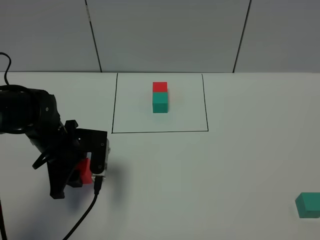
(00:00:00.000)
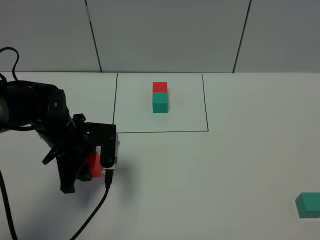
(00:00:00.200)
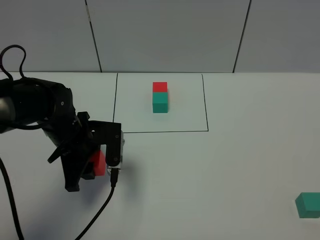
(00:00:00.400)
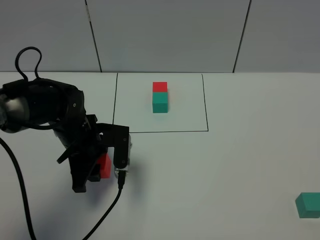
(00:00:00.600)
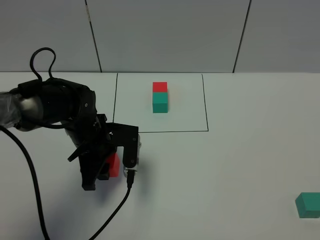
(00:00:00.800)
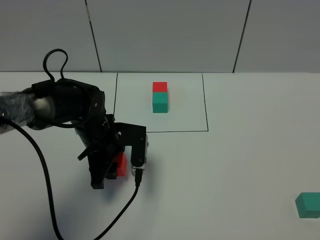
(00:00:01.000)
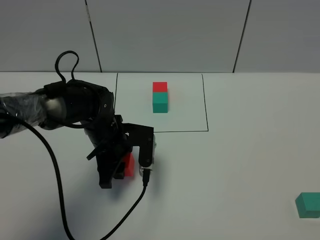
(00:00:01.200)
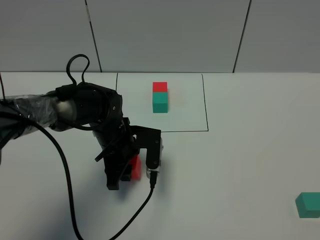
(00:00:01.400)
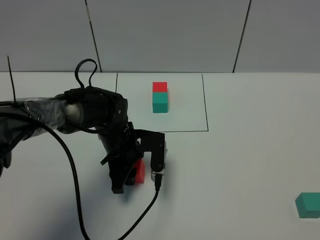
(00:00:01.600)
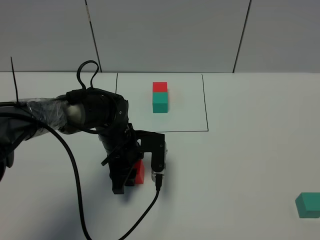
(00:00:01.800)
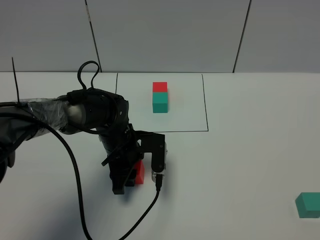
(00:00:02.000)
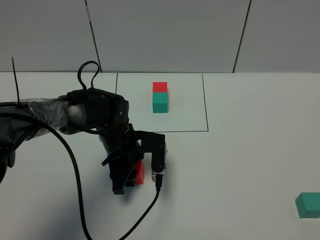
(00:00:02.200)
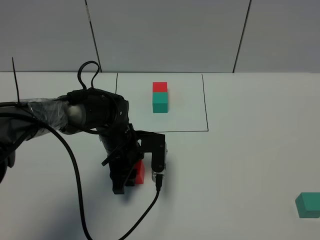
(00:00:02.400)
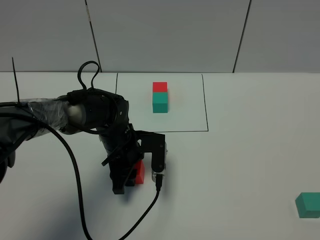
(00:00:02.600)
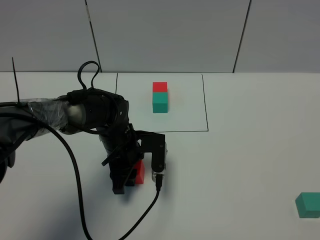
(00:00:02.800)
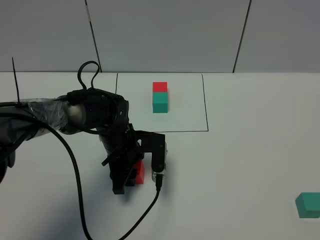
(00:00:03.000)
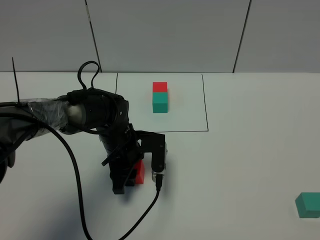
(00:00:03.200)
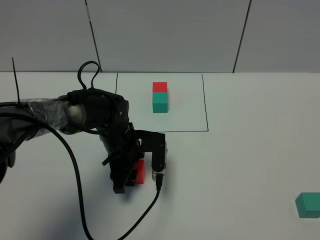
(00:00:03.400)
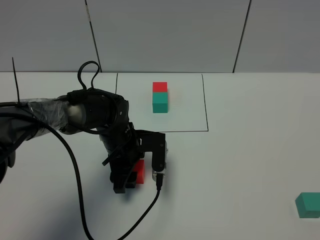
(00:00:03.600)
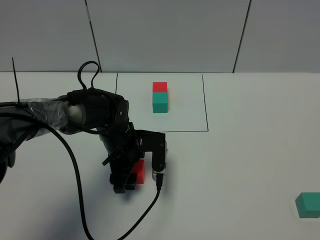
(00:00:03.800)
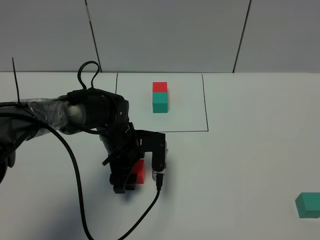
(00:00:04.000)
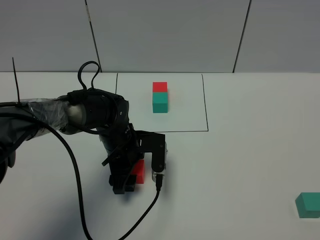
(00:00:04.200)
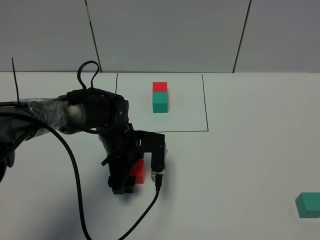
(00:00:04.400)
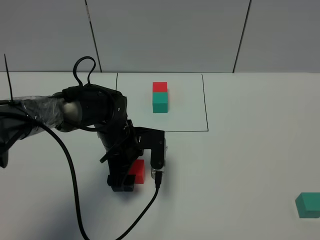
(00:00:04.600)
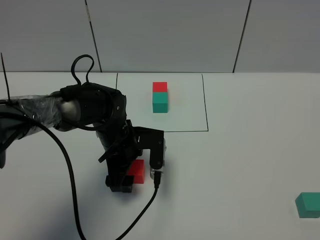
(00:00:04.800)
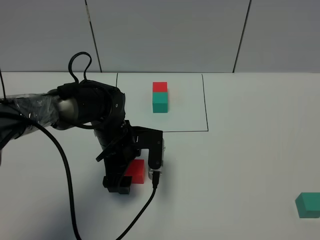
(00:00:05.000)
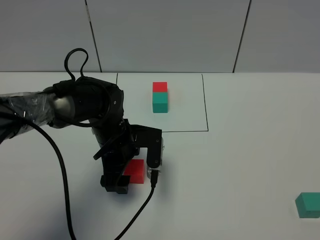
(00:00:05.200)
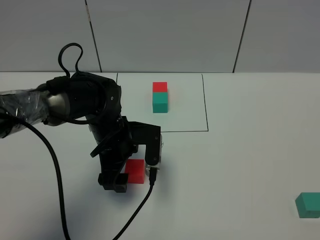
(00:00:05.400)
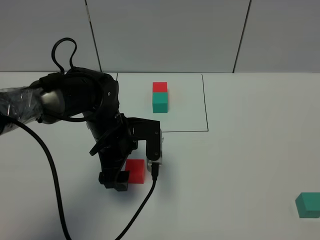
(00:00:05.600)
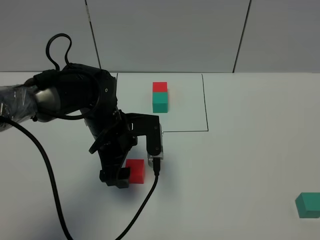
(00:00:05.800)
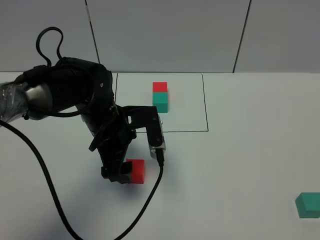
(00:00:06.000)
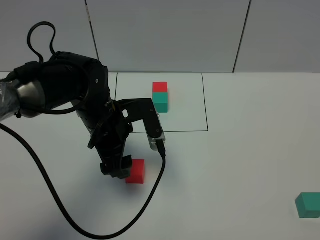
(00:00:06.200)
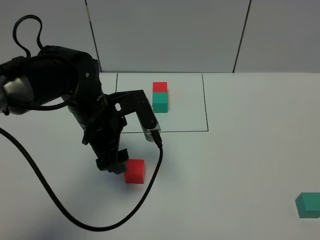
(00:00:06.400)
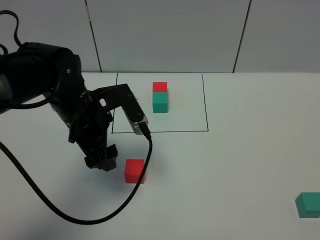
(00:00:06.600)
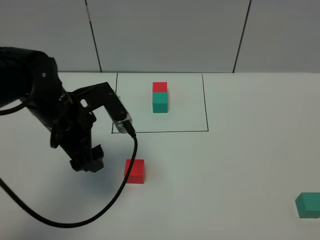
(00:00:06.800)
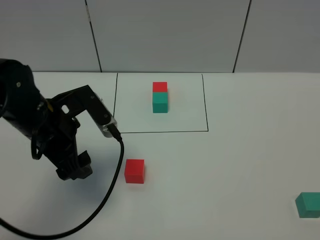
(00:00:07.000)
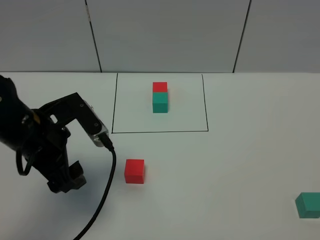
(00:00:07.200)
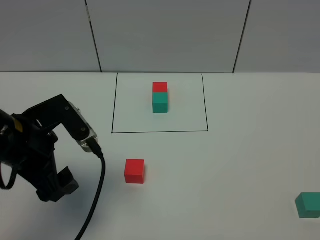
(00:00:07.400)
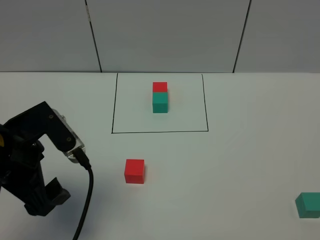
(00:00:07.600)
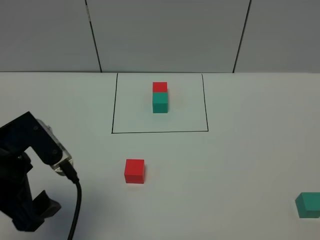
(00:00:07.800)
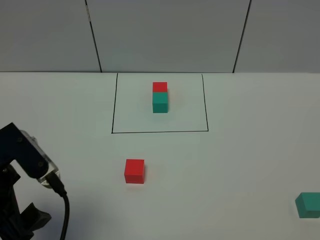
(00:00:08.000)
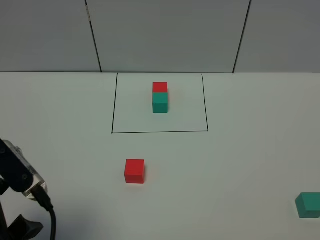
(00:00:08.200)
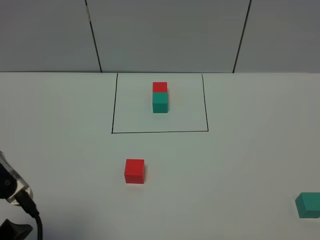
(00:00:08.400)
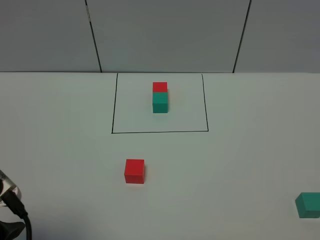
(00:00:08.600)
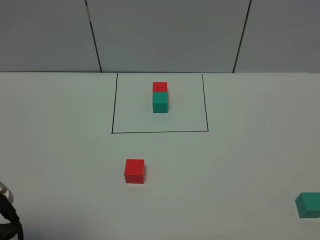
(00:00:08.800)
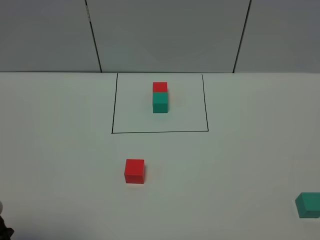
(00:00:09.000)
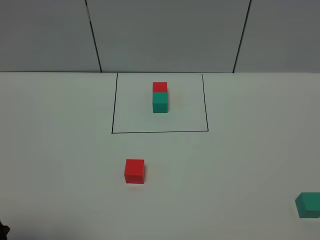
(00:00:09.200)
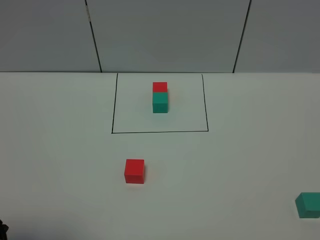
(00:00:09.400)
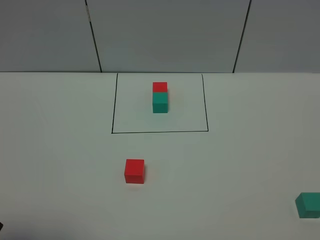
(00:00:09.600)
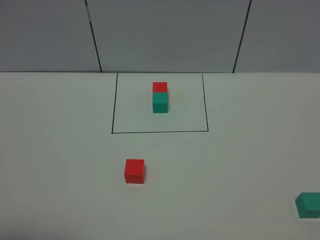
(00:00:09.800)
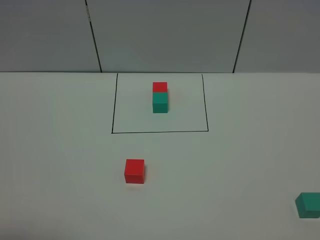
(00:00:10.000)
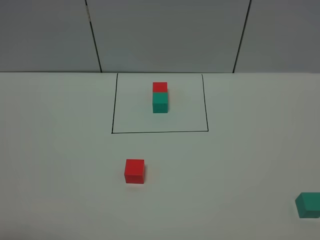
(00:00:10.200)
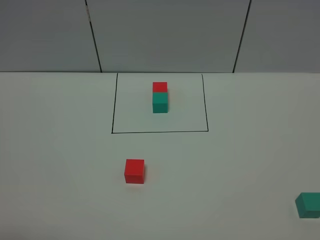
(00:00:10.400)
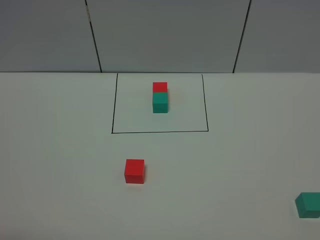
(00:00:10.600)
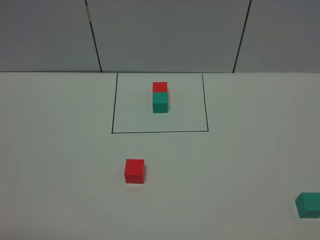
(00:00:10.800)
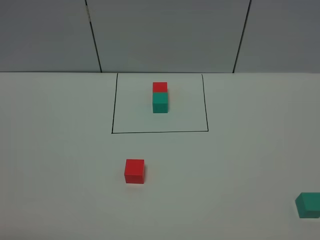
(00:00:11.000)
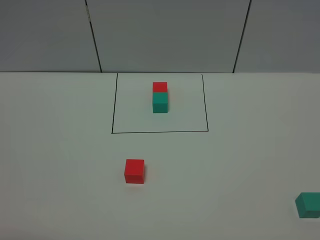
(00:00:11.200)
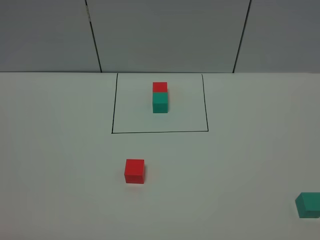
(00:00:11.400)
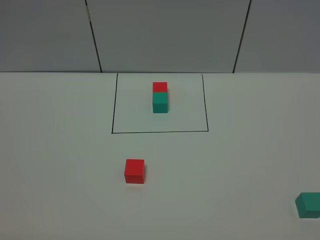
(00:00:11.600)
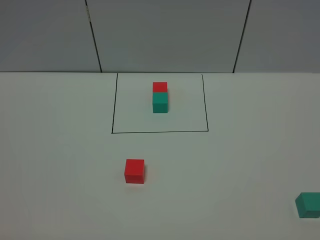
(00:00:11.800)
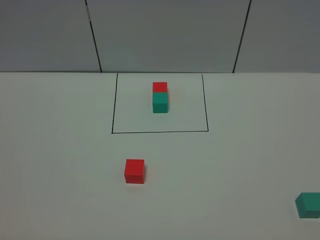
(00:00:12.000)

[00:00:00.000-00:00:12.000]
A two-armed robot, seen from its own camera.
Task of the whole recording: According to the building block template in front, assemble the scattered blocks together.
Step, 00:00:00.000 to 00:00:05.400: Put the red cube in the center of the table.
00:00:00.000 to 00:00:01.600: The left gripper travels to the right by some 10 cm.
00:00:01.600 to 00:00:03.000: Both grippers stay put.
00:00:03.000 to 00:00:04.400: The left gripper opens.
00:00:04.400 to 00:00:06.000: The left gripper shifts about 10 cm upward.
00:00:06.000 to 00:00:07.600: The left gripper heads backward, to the left and upward, covering about 20 cm.
00:00:07.600 to 00:00:09.000: The left gripper goes some 10 cm backward.

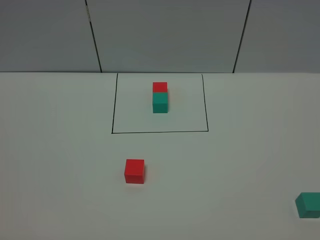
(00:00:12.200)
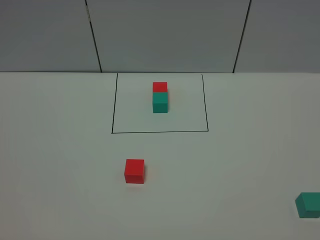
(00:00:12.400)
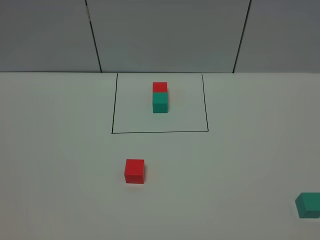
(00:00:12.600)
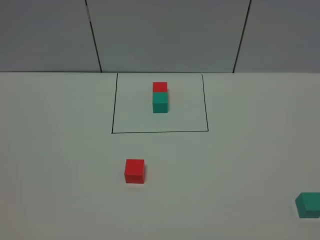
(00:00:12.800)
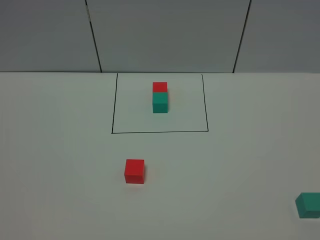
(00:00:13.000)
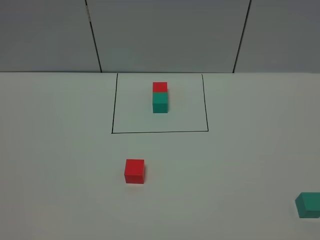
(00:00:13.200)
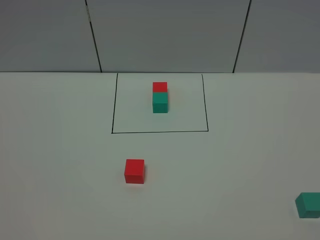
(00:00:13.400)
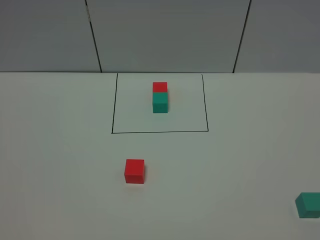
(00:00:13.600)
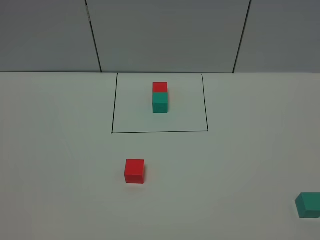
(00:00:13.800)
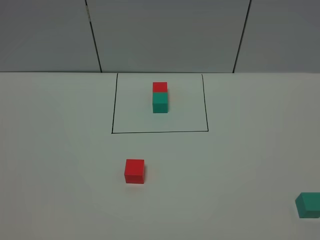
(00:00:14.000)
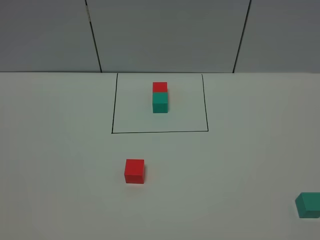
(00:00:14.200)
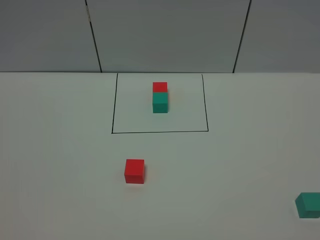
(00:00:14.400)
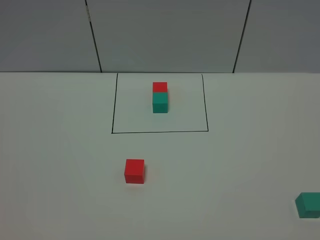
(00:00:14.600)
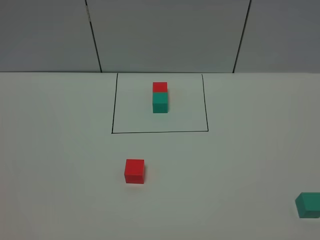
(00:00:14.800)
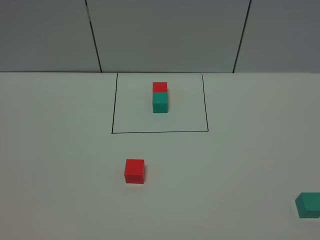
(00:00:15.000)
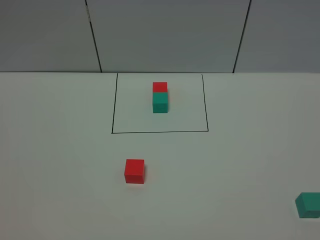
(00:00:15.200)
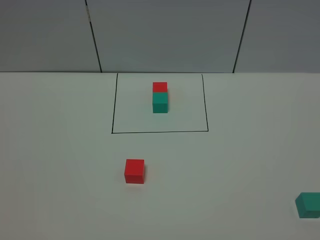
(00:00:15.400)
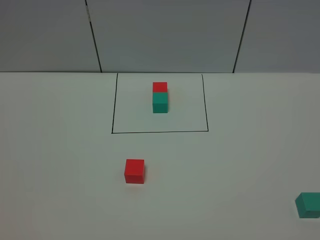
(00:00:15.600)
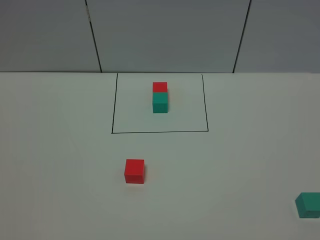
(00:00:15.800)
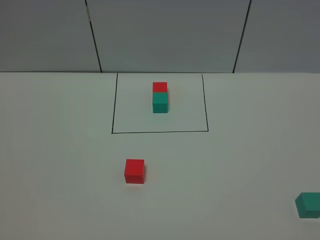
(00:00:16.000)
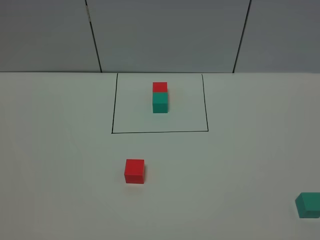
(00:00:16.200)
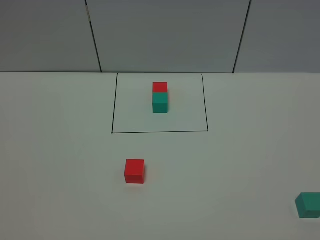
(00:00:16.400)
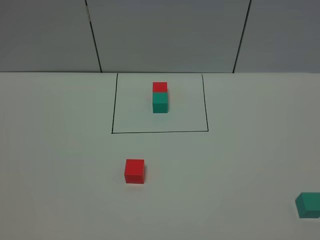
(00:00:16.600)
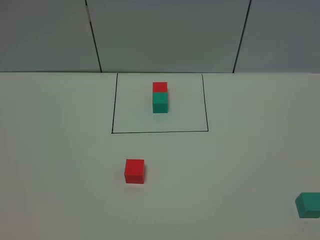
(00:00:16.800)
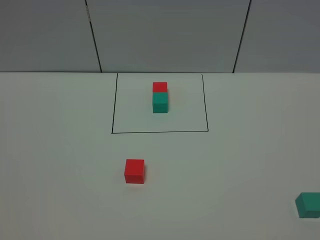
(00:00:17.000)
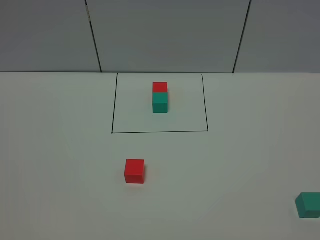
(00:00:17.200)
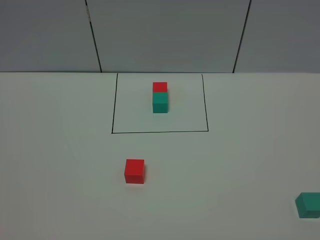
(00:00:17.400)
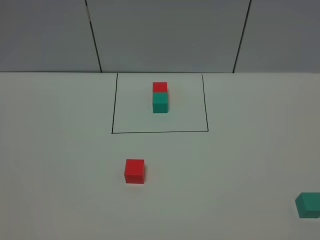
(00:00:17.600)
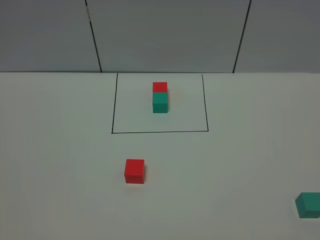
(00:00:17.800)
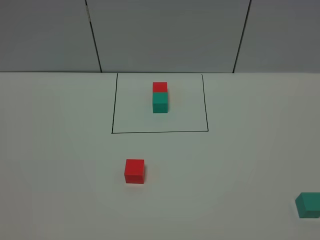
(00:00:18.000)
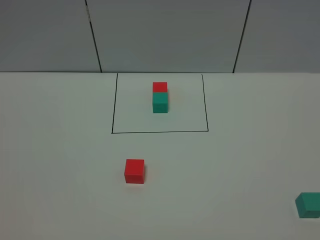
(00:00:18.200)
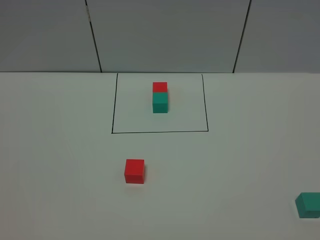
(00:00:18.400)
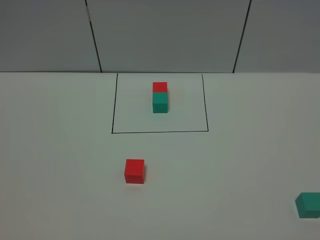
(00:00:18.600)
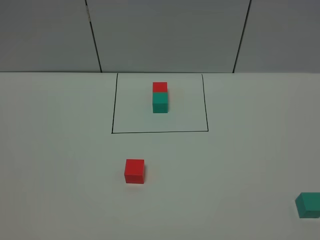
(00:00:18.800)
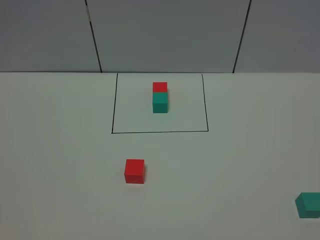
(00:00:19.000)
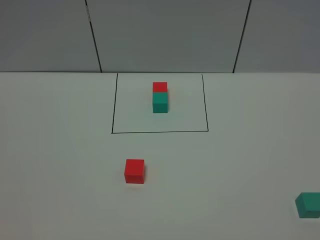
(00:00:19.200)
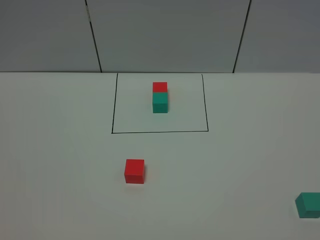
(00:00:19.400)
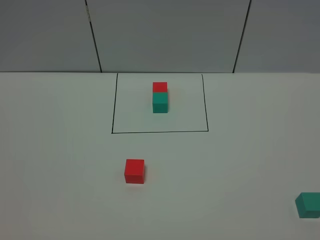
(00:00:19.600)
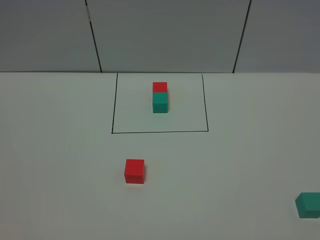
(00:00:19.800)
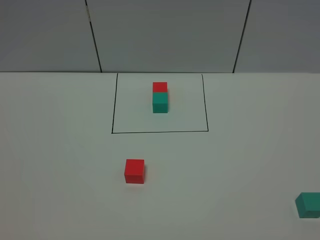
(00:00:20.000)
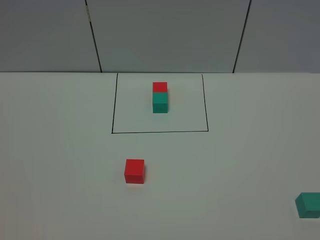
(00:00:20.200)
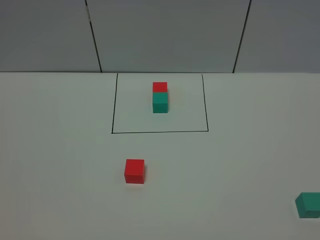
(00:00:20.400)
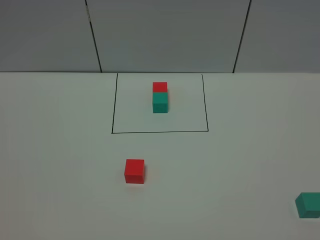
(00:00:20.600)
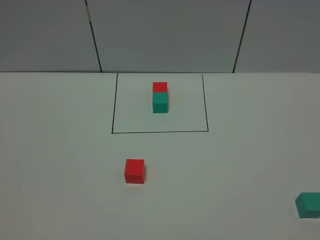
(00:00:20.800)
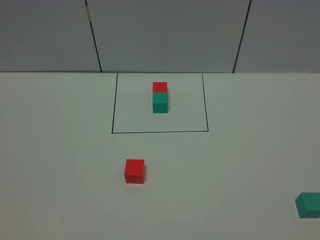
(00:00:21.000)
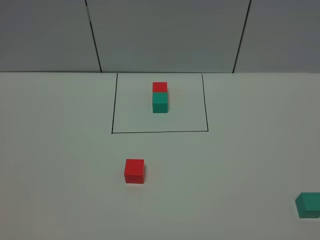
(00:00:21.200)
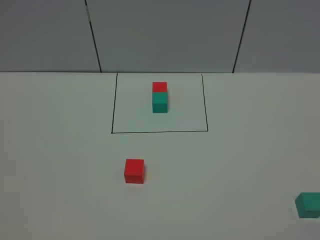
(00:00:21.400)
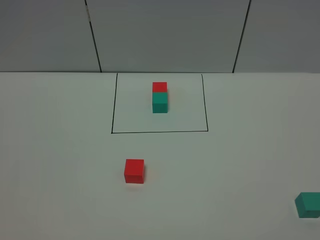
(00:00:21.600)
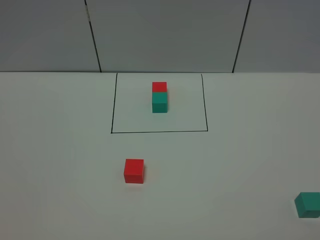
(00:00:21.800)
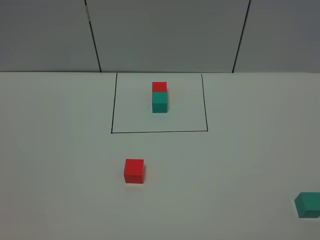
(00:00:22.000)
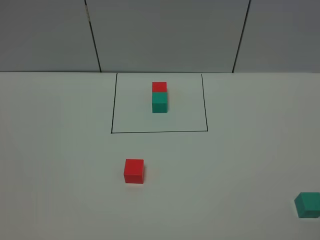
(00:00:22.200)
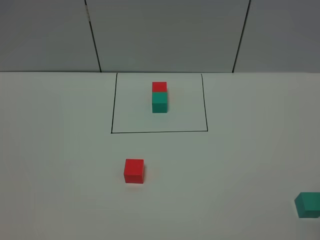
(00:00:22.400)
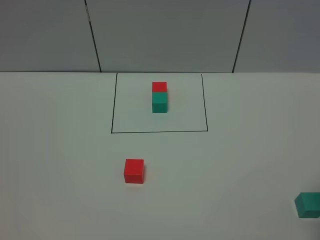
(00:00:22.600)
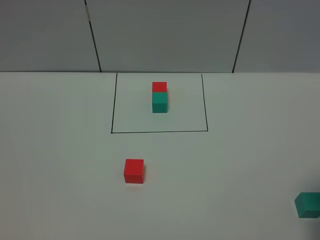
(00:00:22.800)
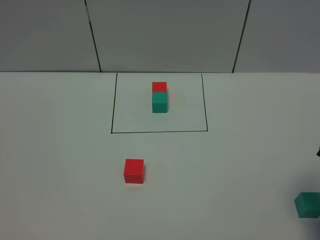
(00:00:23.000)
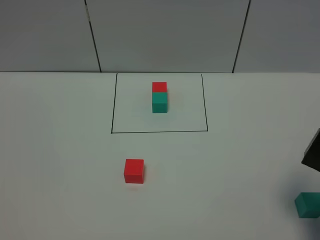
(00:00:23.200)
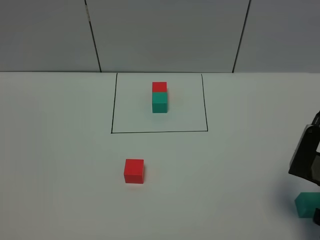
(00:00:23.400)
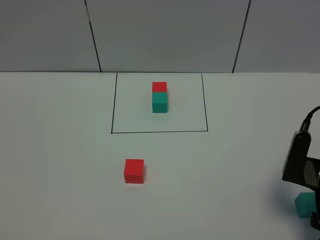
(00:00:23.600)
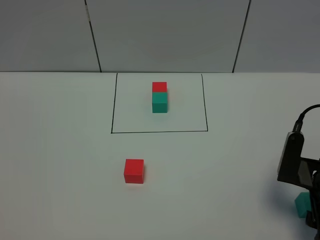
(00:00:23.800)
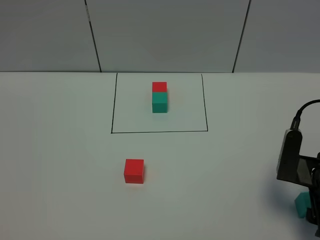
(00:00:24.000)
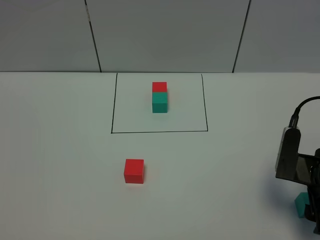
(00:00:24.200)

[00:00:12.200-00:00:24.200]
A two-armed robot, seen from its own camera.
Task of the whole recording: According to the building block template in front, assemble the scattered blocks together.
00:00:15.200 to 00:00:21.200: Neither gripper changes place.
00:00:22.600 to 00:00:24.200: The right gripper travels downward, to the left and forward by some 10 cm.
